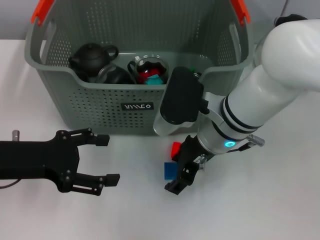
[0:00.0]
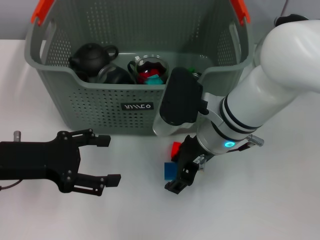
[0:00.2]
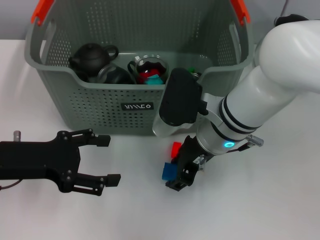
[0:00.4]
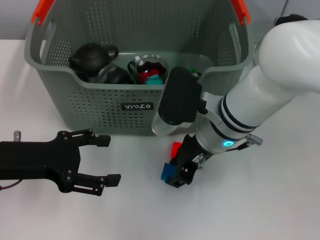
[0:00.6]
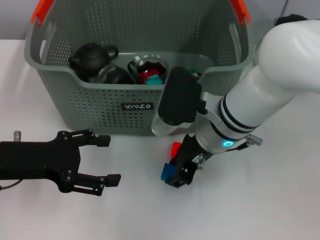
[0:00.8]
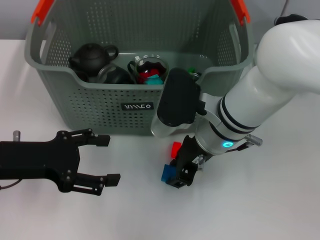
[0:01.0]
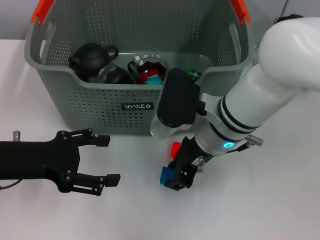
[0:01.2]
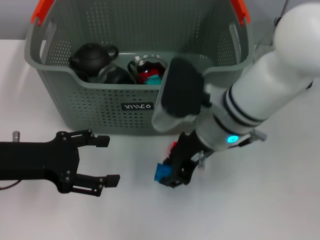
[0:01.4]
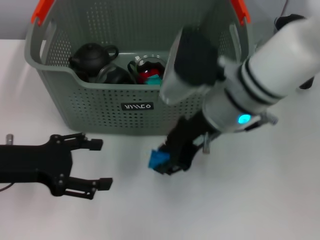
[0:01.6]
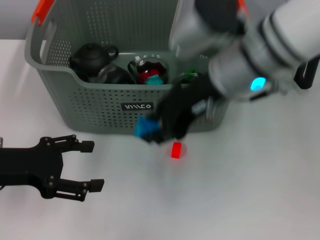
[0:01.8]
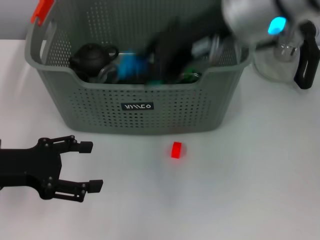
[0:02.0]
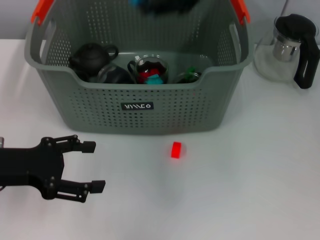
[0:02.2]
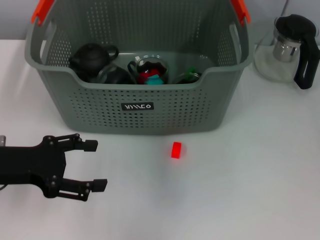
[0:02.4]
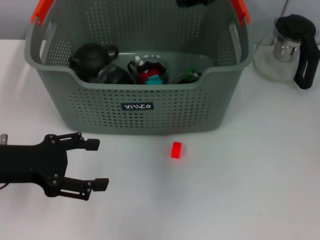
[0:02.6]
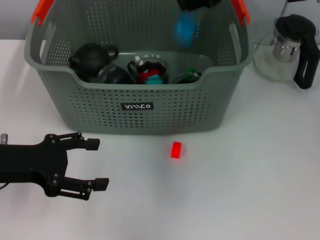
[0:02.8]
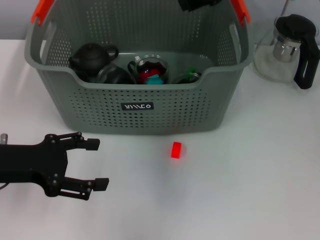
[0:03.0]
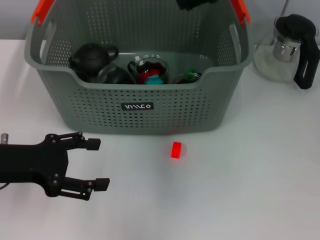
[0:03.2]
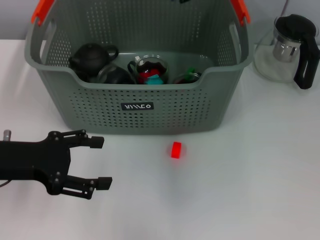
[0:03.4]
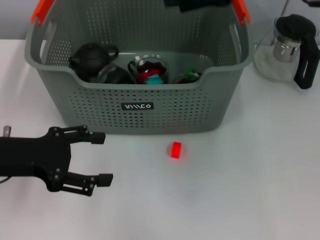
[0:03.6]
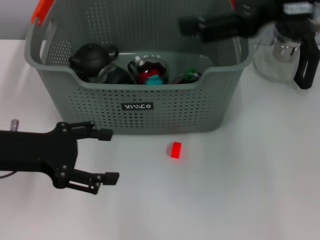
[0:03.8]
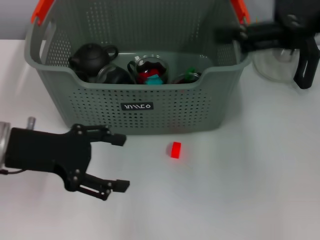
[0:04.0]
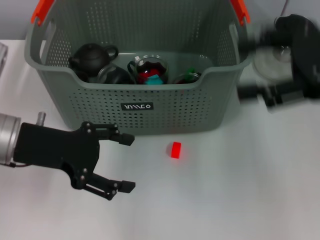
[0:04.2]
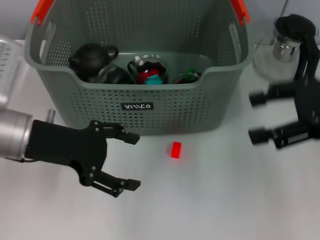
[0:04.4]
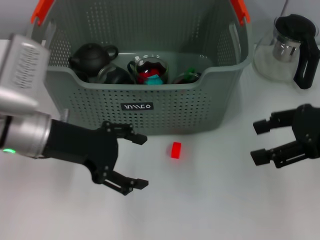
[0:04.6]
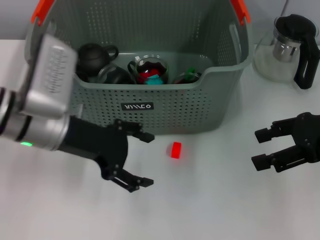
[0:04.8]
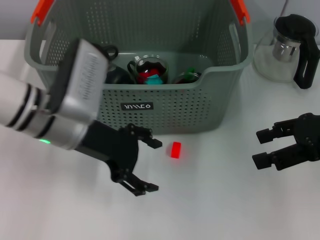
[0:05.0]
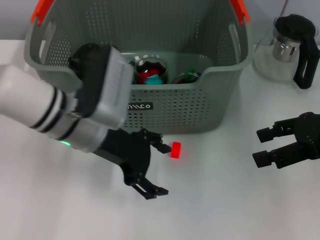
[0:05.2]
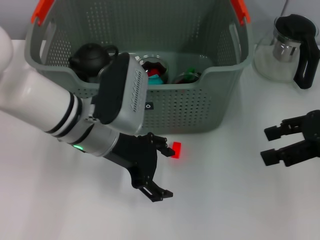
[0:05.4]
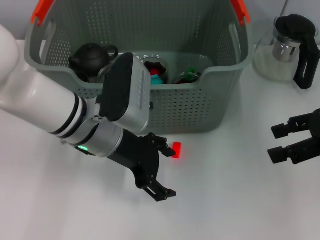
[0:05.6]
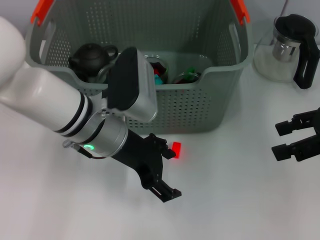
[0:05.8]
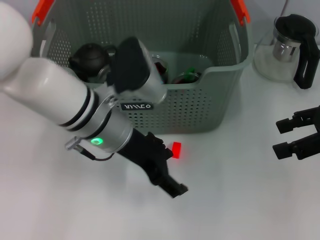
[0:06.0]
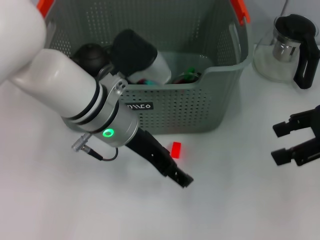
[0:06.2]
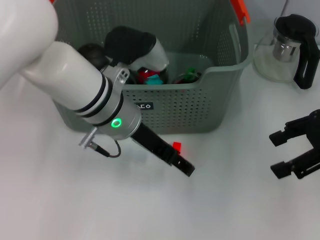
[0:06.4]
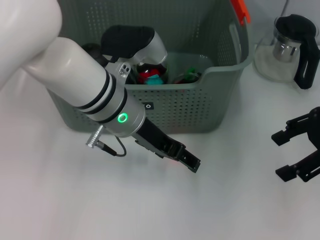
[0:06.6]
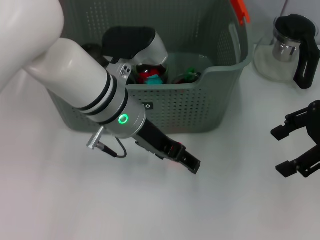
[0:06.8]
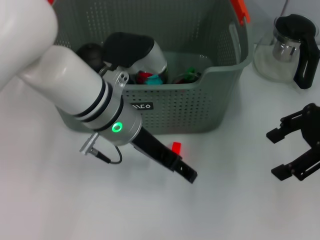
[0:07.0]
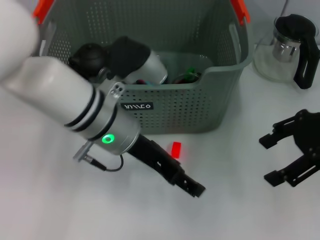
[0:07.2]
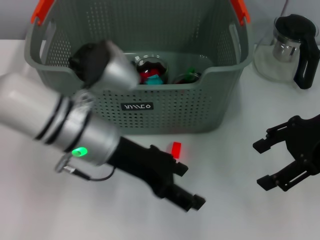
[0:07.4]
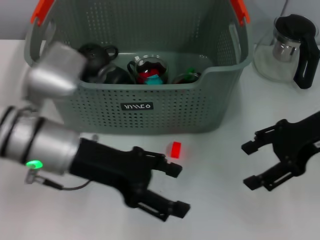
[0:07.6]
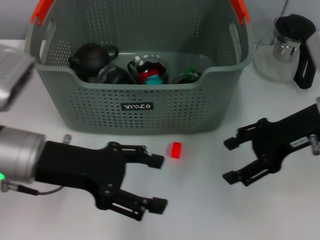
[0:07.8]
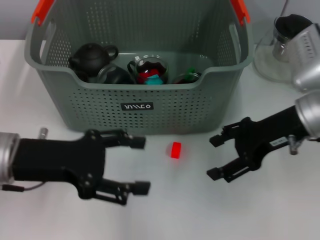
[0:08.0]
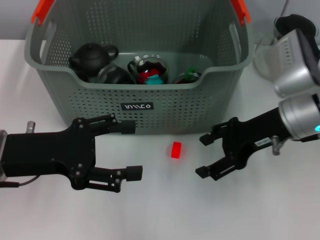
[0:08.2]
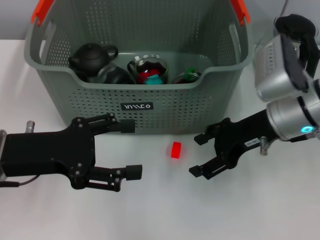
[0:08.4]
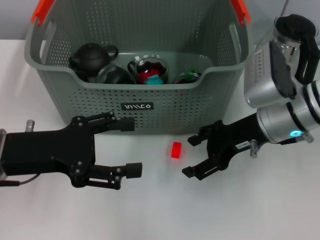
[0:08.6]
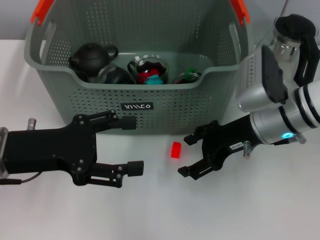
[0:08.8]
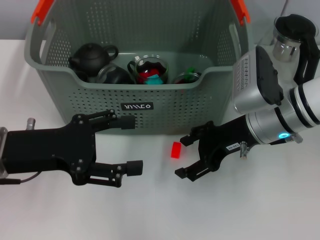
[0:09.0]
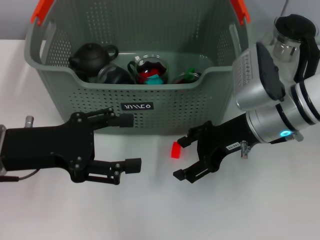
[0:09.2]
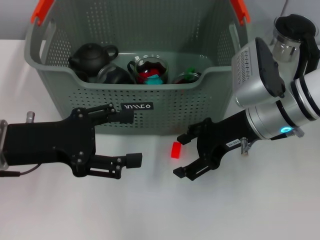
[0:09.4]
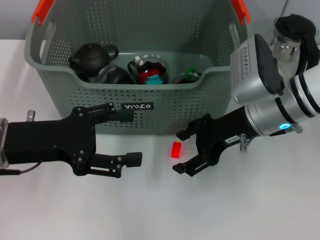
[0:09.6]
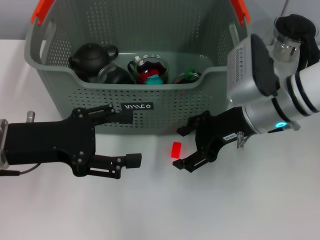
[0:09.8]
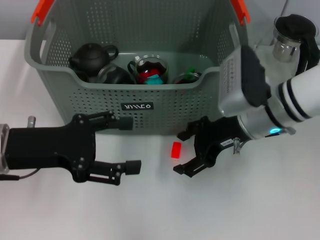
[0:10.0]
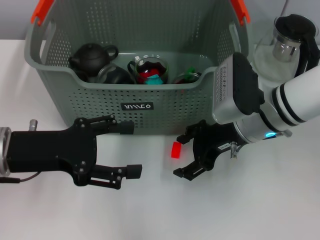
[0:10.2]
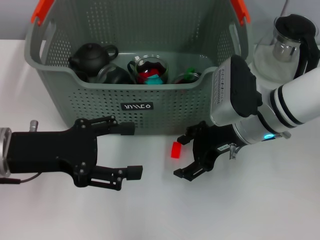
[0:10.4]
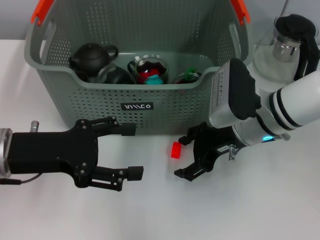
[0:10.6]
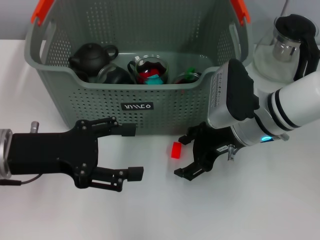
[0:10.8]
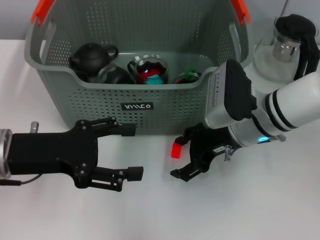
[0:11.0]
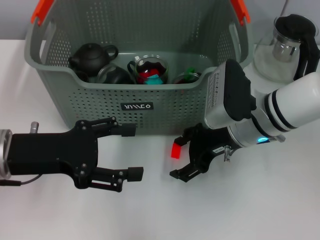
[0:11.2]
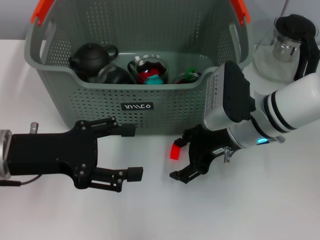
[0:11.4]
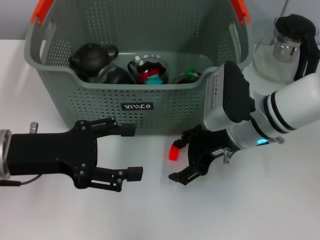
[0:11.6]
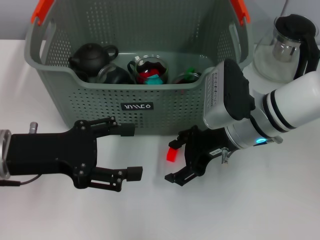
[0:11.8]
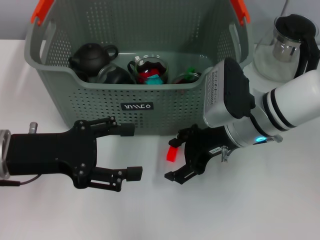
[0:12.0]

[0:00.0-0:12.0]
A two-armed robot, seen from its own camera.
Task of the whole recording: pick up the teacup on the table and place it into the storage bin, pick up the block on the table and place it into the storage bin.
Step, 0:01.2 to 0:02.6: Place the dark blue block in the storage box with right gripper.
0:00.0 to 0:01.6: The right gripper shifts approximately 5 cm upward, and closes up.
0:01.6 to 0:03.0: The right gripper shifts approximately 15 cm upward, forward and to the right.
0:03.0 to 0:04.4: The left gripper shifts some 5 cm to the right. Meanwhile the right gripper travels to the right, backward and downward by roughly 20 cm, and opens its fingers.
0:04.4 to 0:06.0: The left gripper moves to the right, some 15 cm.
0:06.0 to 0:07.6: The grippers both shift to the left by approximately 5 cm.
0:07.6 to 0:09.0: The right gripper goes some 10 cm to the left and downward. Meanwhile the left gripper goes some 10 cm to the left.
0:09.0 to 0:10.4: There are only small adjustments of the grippers.
0:10.4 to 0:12.0: The two grippers keep their place.

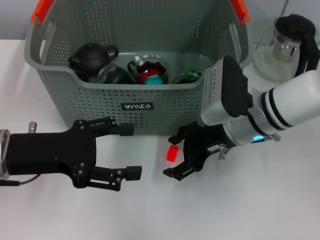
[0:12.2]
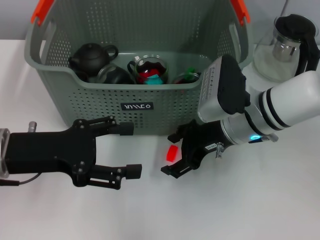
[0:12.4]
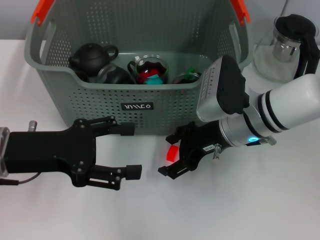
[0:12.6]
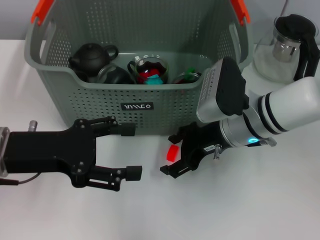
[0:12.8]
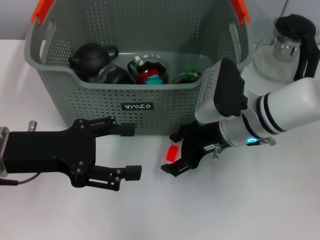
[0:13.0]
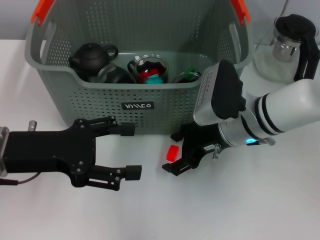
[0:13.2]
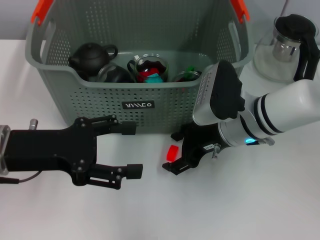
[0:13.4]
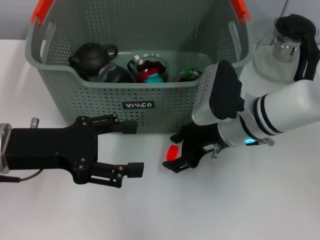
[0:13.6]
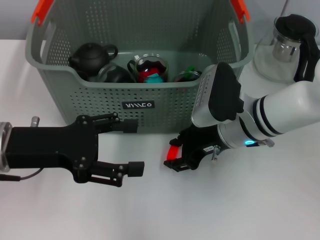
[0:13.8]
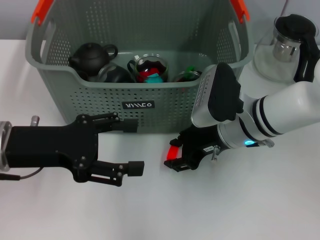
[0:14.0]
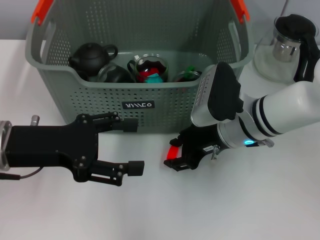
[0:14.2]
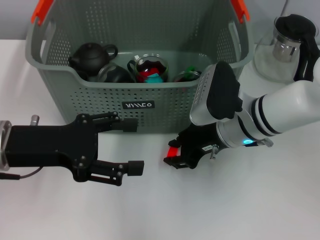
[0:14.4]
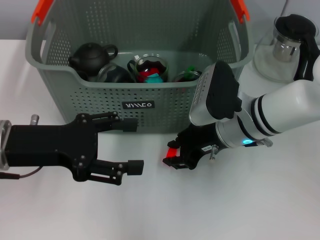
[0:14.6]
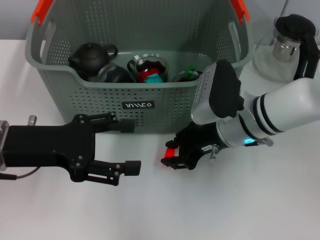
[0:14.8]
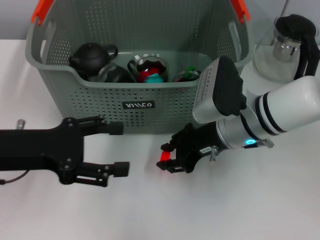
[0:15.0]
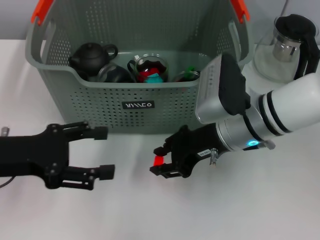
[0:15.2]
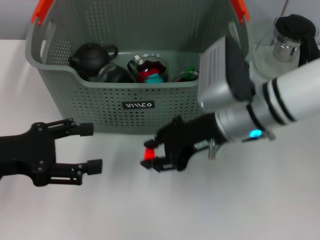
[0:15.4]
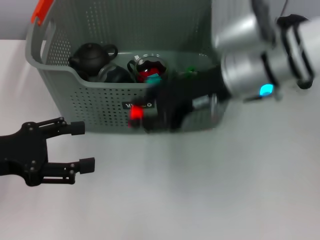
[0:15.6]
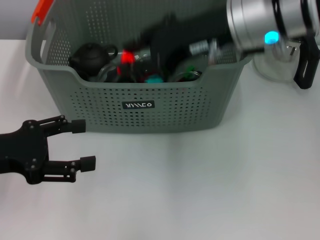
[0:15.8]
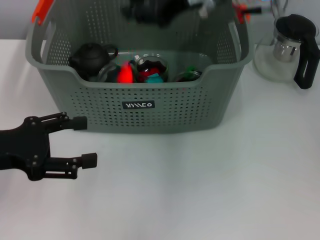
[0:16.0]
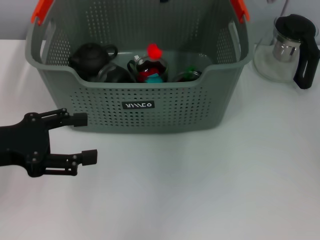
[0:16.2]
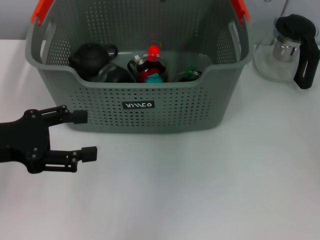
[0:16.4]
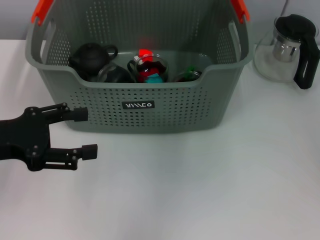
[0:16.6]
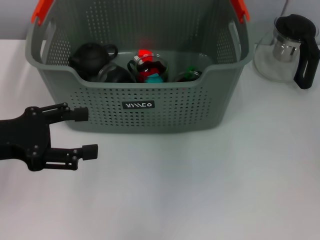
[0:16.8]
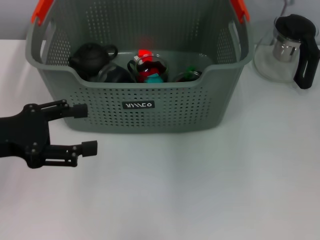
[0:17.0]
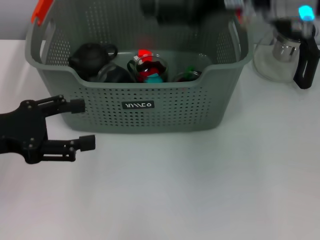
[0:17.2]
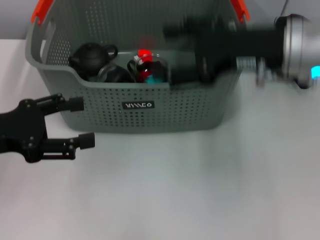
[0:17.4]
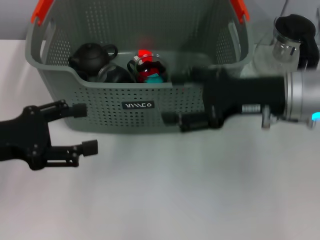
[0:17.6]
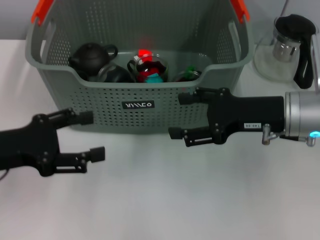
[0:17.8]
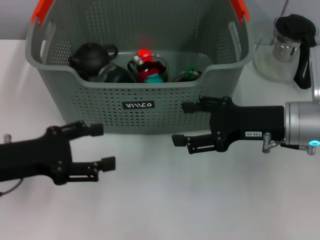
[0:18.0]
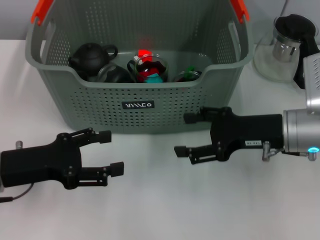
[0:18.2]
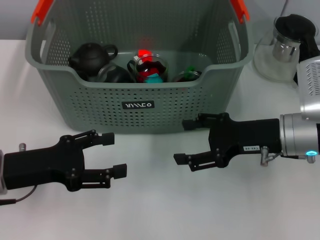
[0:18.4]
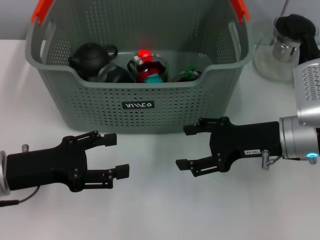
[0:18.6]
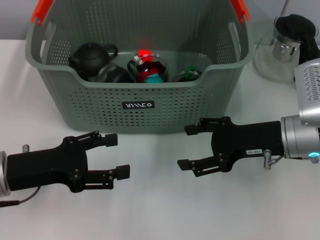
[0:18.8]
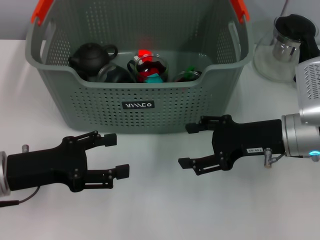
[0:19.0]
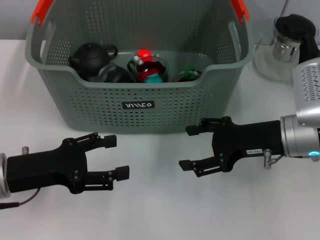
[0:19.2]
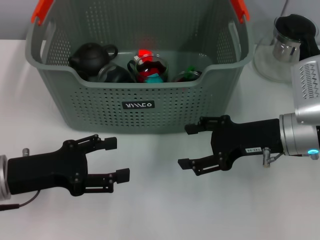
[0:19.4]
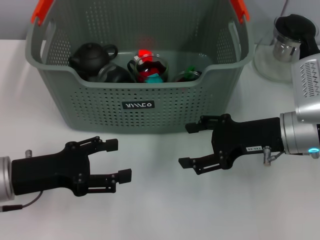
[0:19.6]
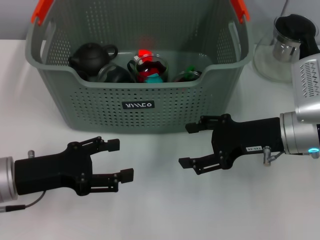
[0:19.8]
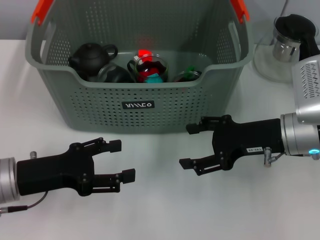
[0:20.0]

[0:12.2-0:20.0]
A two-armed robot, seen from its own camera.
Task of the whole recording: pick up the teacup on the table and place it into the storage bin, pick up the block on the table and place it into the storage bin.
Step, 0:14.2 to 0:15.8: Place the orange block in the storage box with right gripper.
0:12.2 to 0:13.8: The grippers stay close to where they were, moving slightly.
0:13.8 to 0:15.4: The left gripper ends up about 5 cm from where it was, while the right gripper moves upward, about 5 cm, and closes up.
0:15.4 to 0:16.8: The right gripper is displaced upward and forward by some 15 cm.
0:16.8 to 0:18.4: The left gripper travels downward by approximately 5 cm, while the right gripper travels downward, backward and to the right by some 25 cm, and opens.
0:18.4 to 0:20.0: The grippers stay close to where they were, moving slightly.
